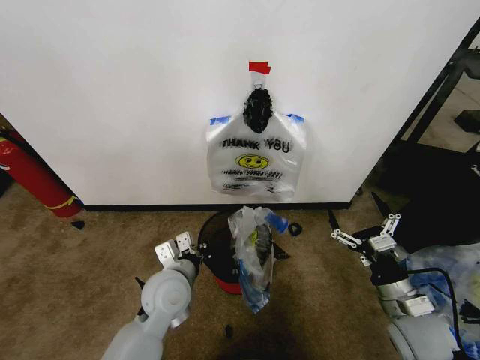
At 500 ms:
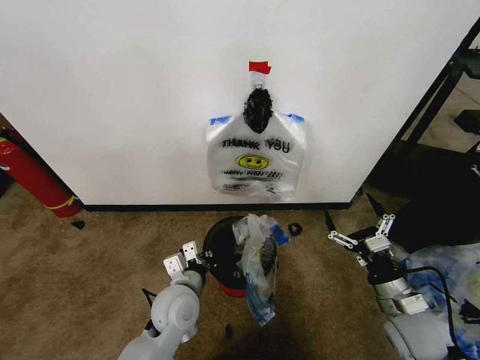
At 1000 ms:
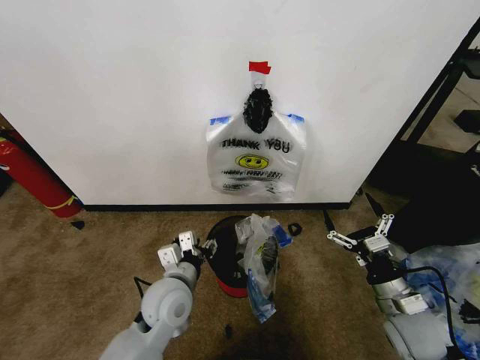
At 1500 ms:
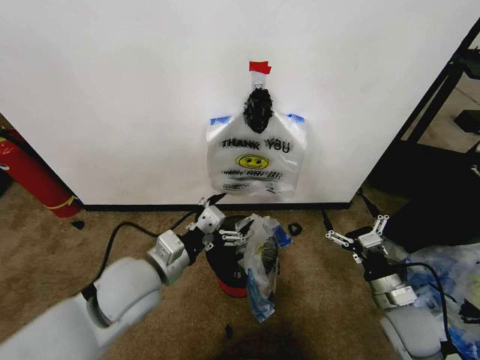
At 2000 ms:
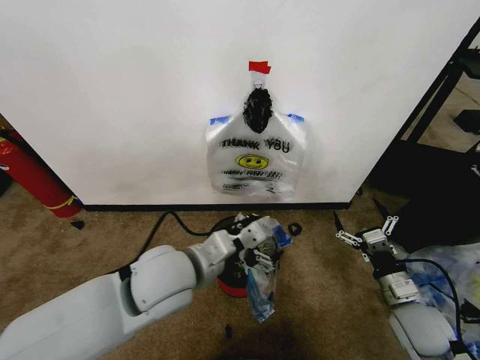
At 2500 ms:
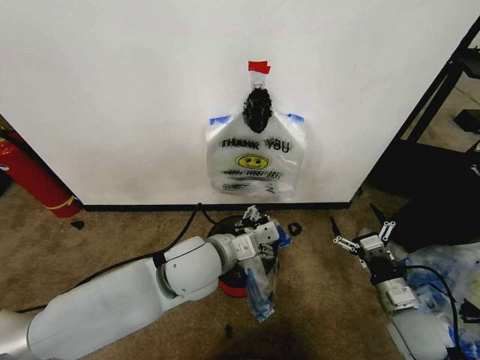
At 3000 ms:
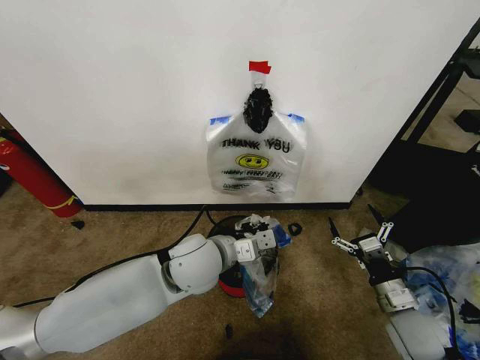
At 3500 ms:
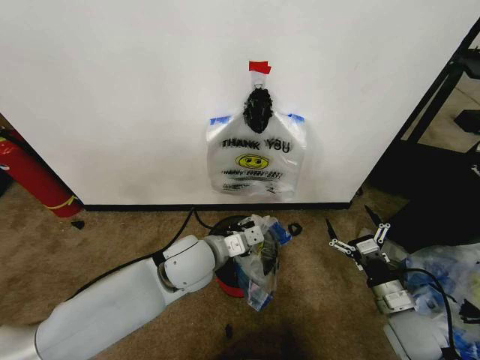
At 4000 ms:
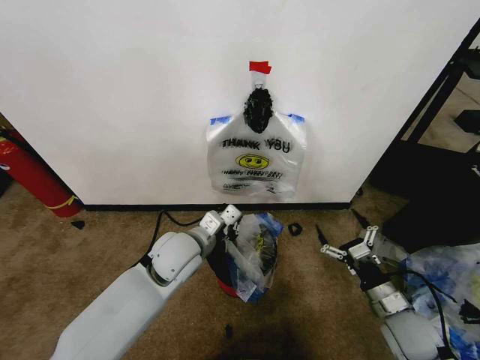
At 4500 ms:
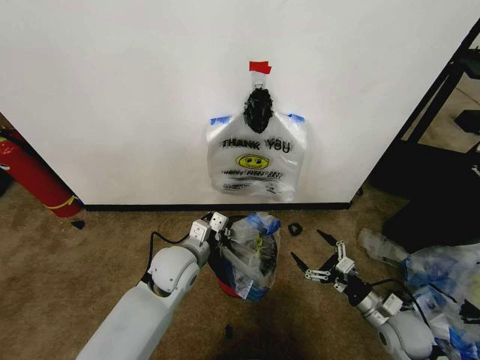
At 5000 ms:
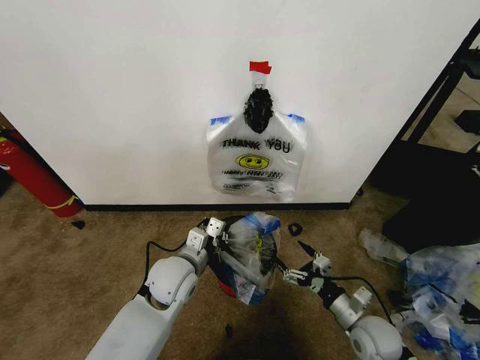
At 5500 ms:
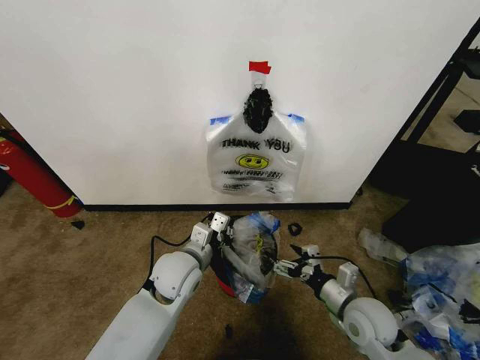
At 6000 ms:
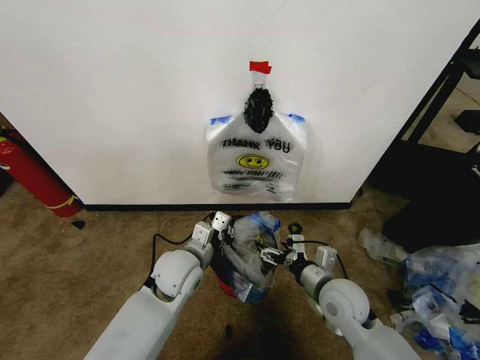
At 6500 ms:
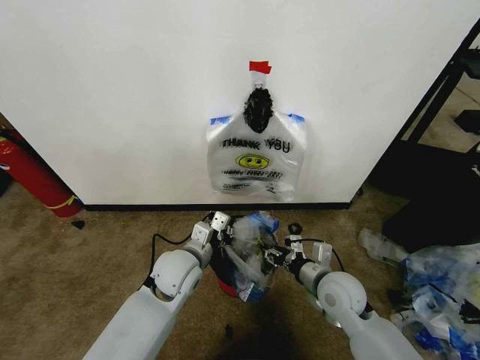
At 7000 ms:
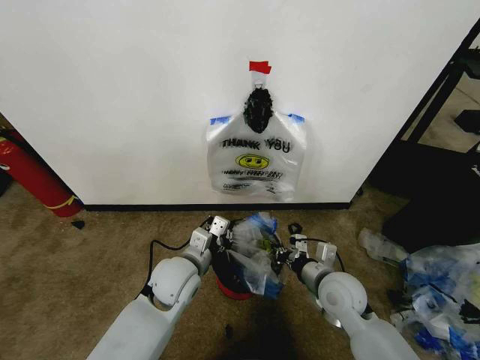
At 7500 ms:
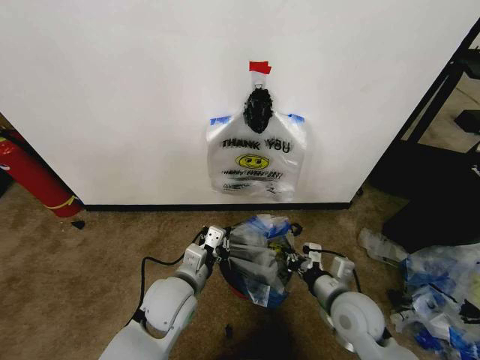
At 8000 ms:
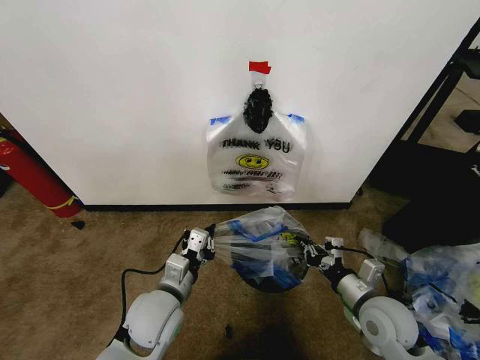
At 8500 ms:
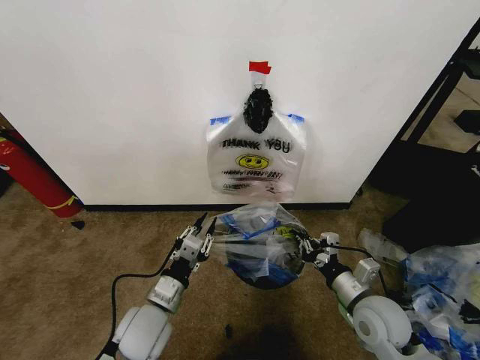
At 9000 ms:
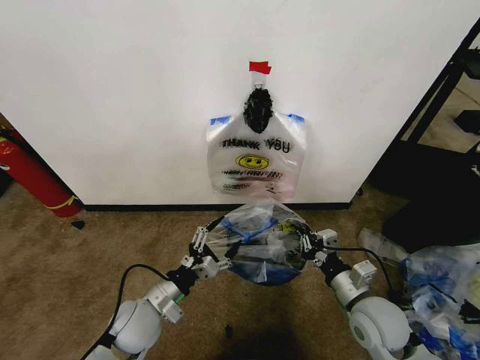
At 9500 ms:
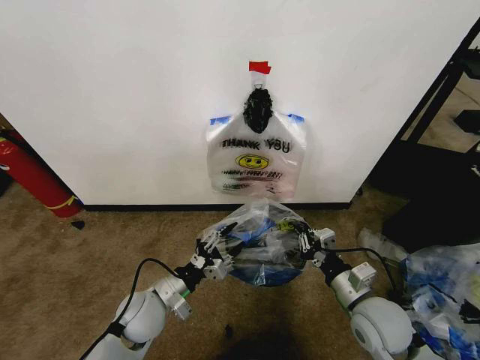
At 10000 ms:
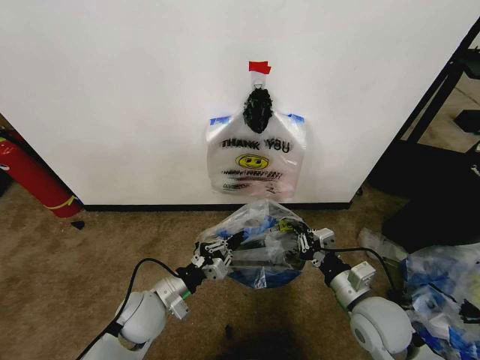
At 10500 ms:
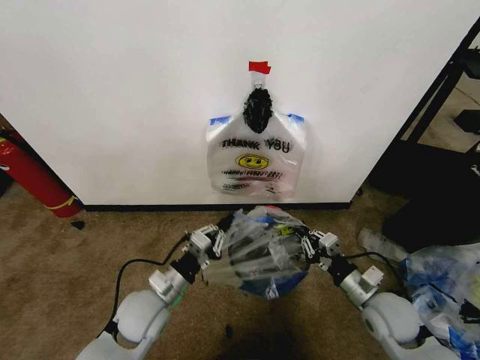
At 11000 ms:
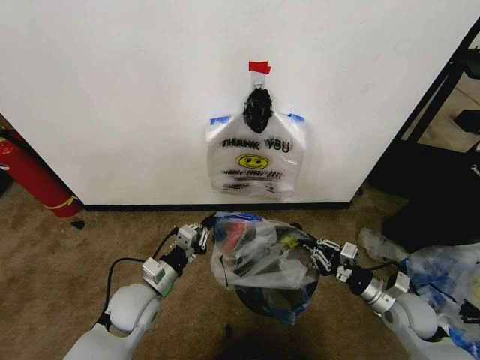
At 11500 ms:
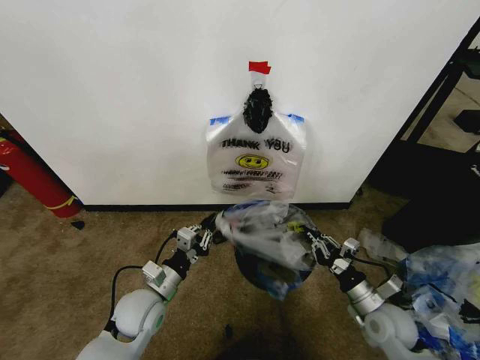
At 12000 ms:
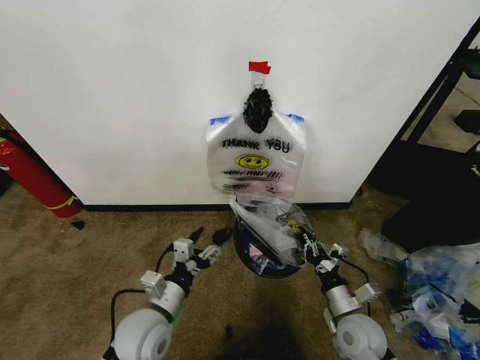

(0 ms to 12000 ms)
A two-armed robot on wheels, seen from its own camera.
Task of the whole recording: Pick up the garbage bag from the wall and place it over the trash bin.
0 ms - 2000 ms: The left gripper heads upward, covering some 15 cm, and opens.
2000 ms - 4000 ms: The left gripper heads forward and downward, covering roughly 10 cm, and closes up.
4000 ms - 6000 ms: The left gripper shifts by some 5 cm. Meanwhile the right gripper travels to the left by approximately 15 cm.
6000 ms - 8000 ms: The left gripper moves backward, about 10 cm. The right gripper is displaced to the right by some 5 cm, and closes its fingers.
8000 ms - 10000 ms: The left gripper shifts by roughly 5 cm, and opens and closes again.
10000 ms - 12000 ms: The right gripper is displaced downward by approximately 10 cm, and reaches roughly 10 cm to the right, then returns. The left gripper moves some 5 cm, and opens its fingers.

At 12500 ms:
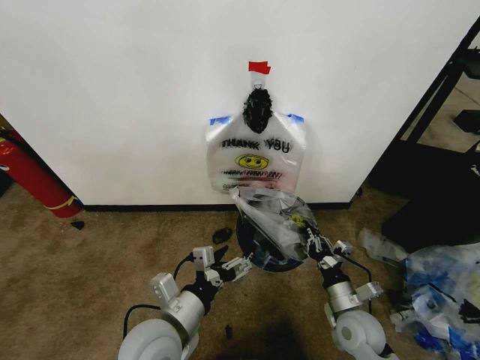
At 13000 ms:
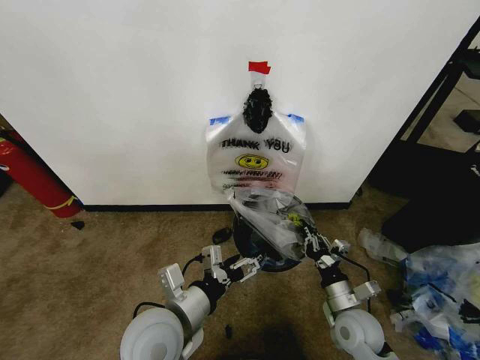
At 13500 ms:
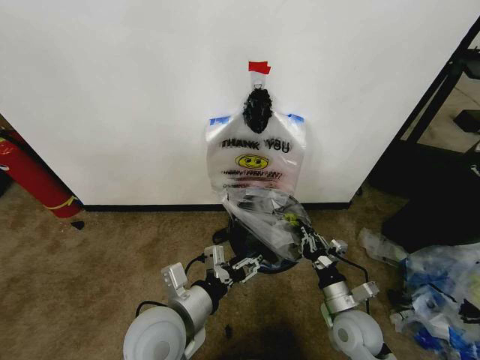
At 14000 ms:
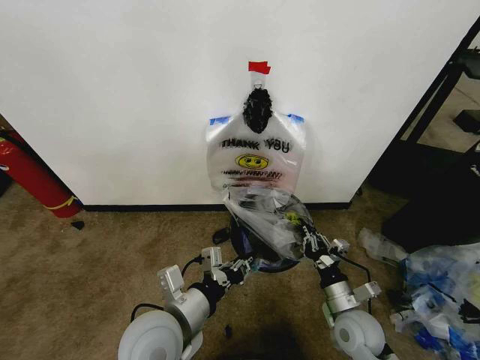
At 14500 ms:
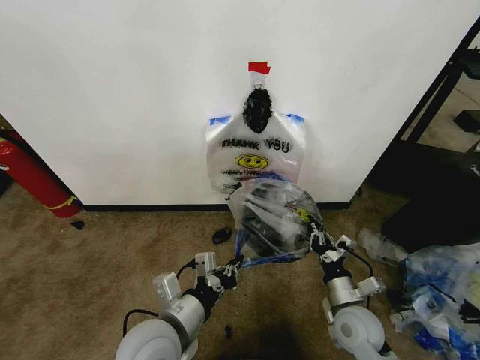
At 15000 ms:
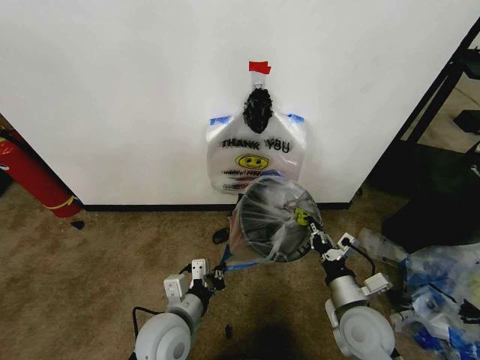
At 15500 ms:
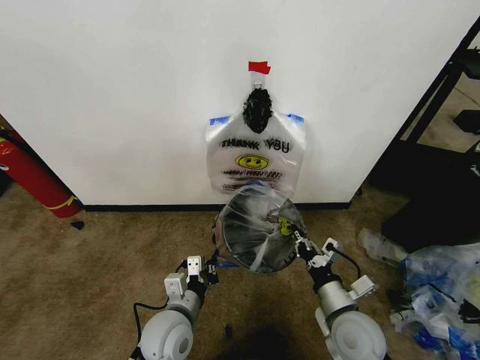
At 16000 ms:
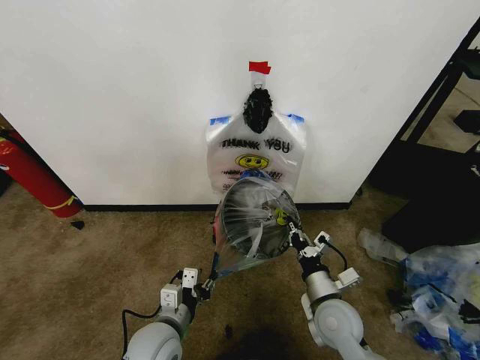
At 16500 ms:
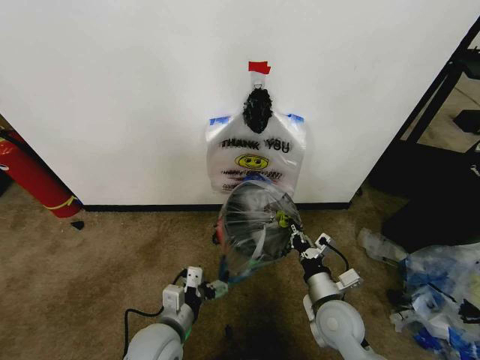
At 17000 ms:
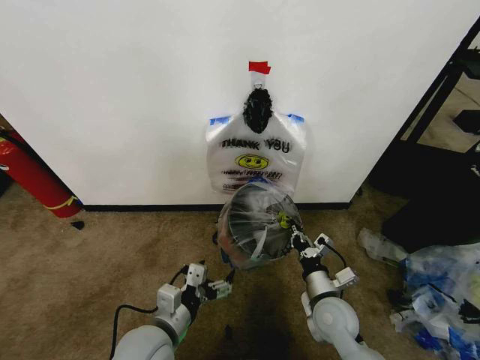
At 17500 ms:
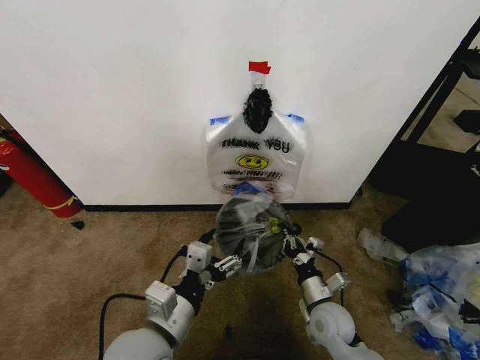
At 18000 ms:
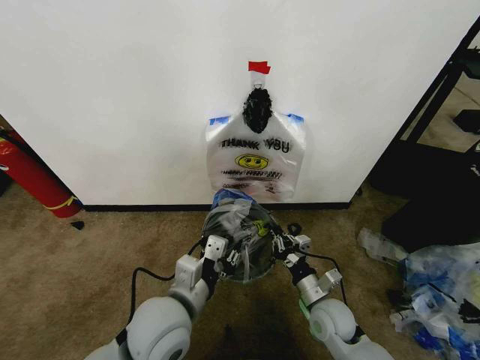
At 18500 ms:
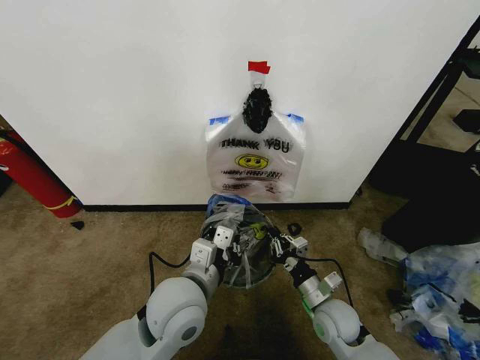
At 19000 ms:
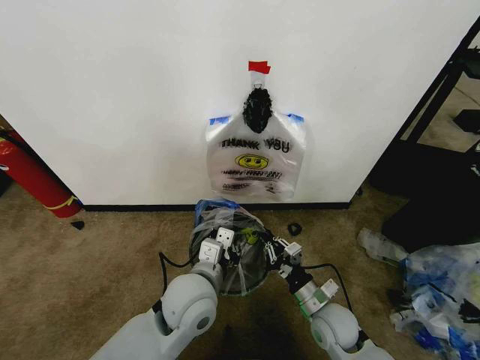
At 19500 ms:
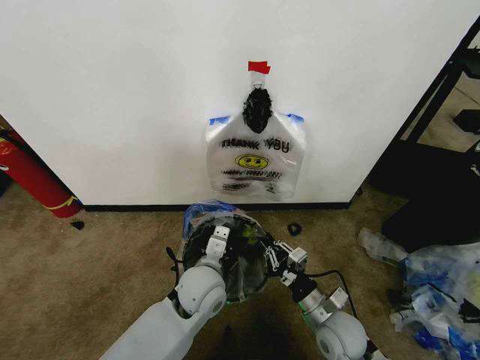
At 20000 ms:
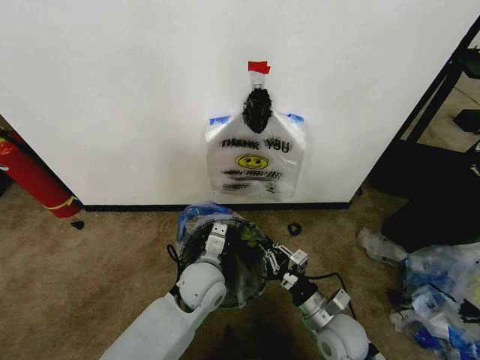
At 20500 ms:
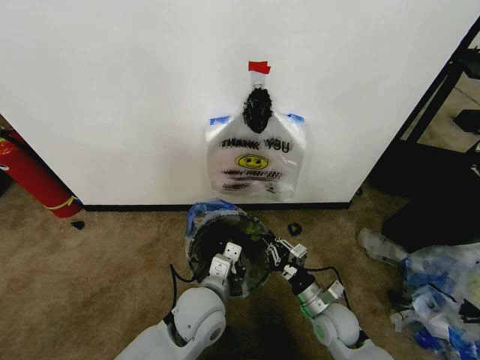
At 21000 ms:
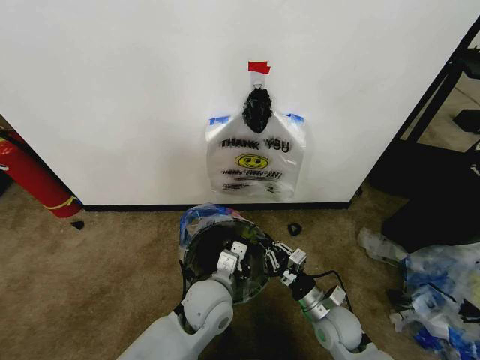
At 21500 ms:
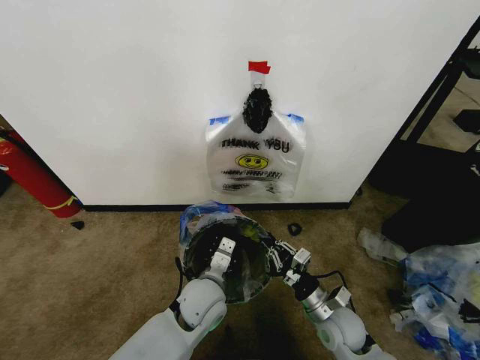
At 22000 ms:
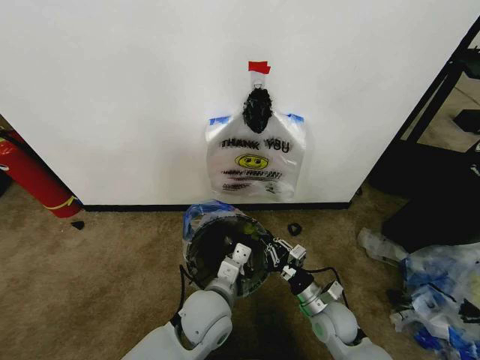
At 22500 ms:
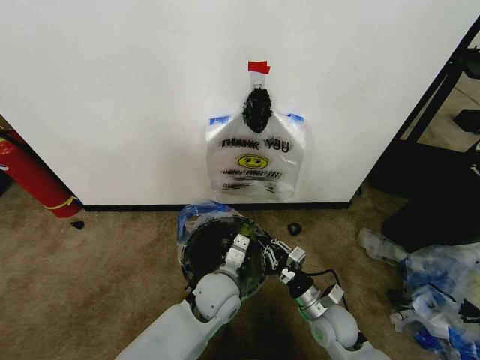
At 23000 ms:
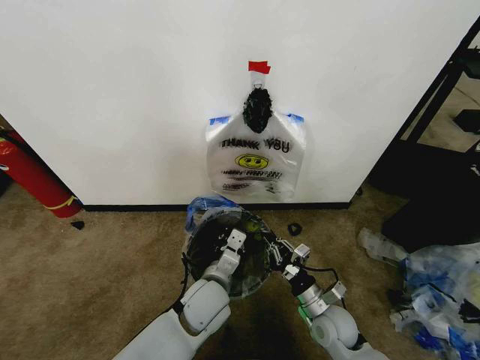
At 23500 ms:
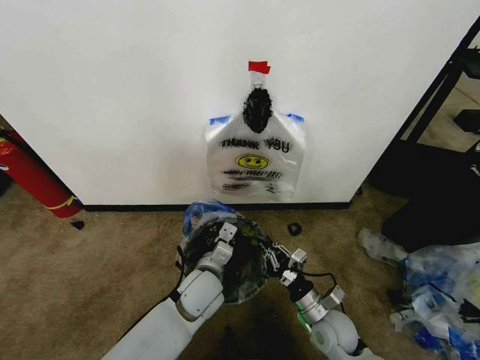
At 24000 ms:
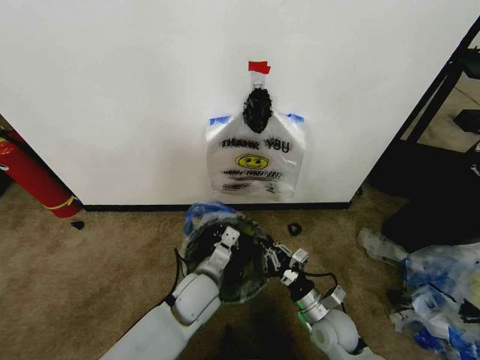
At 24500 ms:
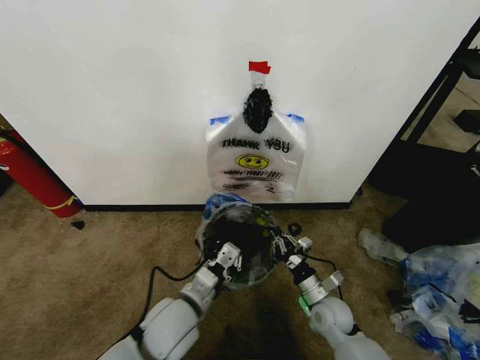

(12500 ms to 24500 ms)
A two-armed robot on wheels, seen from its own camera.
Task of the whole recording: Pick up the garbage bag from the wall and place it over the trash bin.
12500 ms - 14500 ms: The left gripper closes up.
14500 ms - 16500 ms: The left gripper heads downward, covering approximately 10 cm, and opens its fingers.
16500 ms - 18500 ms: The left gripper shifts roughly 15 cm upward and to the right, and closes.
18500 ms - 20500 ms: The left gripper heads downward, covering approximately 10 cm.
20500 ms - 22500 ms: The left gripper shifts by approximately 5 cm.
22500 ms - 24500 ms: The left gripper shifts about 10 cm to the left and backward.

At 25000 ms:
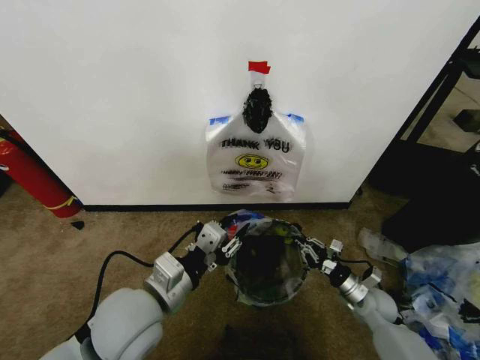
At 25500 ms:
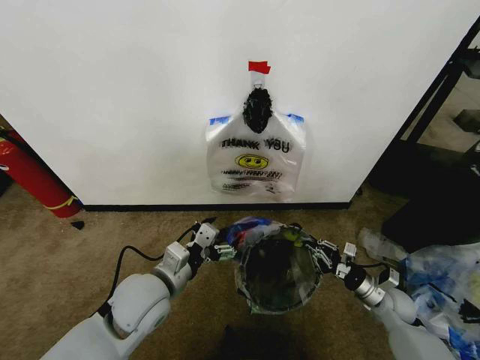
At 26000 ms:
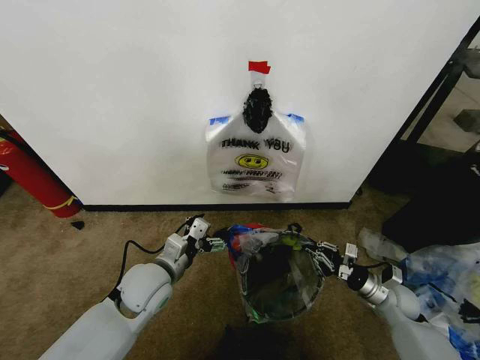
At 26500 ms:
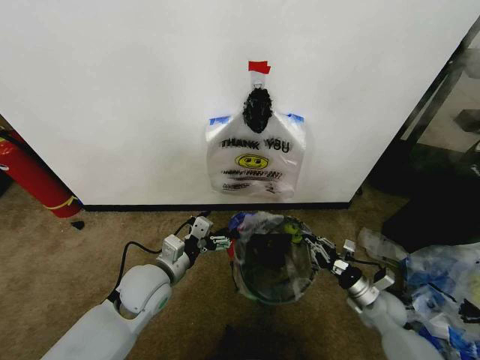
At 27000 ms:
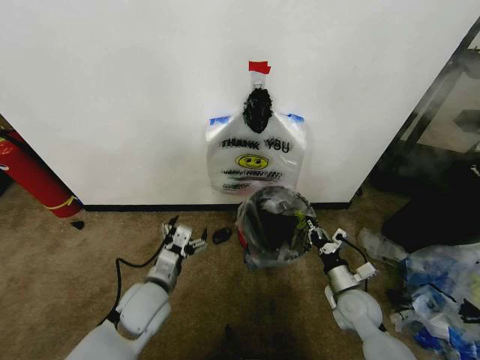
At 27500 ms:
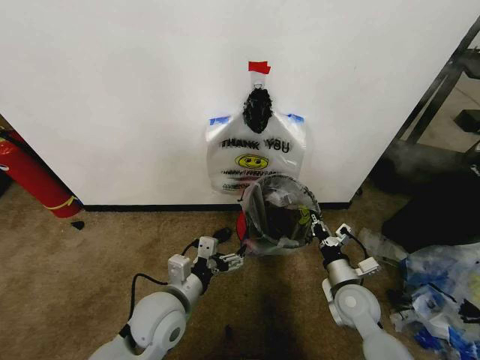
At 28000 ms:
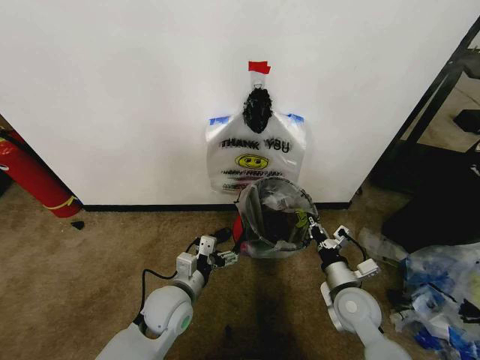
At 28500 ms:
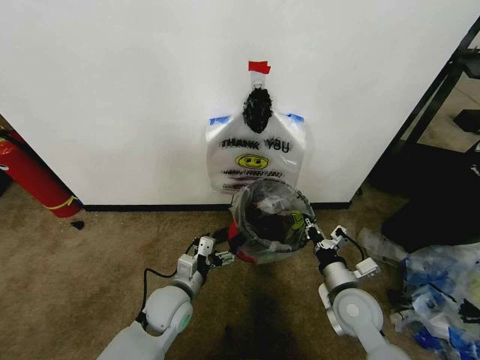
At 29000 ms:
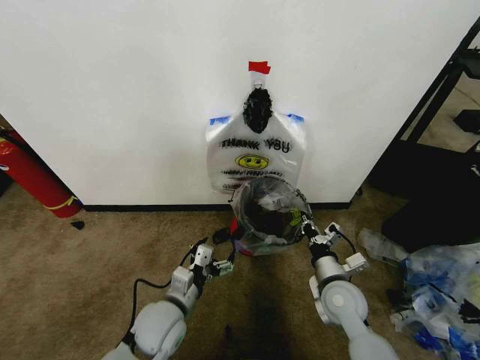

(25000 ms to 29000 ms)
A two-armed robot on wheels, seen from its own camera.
Task of the whole recording: Pick up the garbage bag from the wall and place it over the trash bin.
25000 ms - 27000 ms: The left gripper moves downward and forward, some 15 cm, and opens. Meanwhile the right gripper goes about 5 cm to the left.
27000 ms - 29000 ms: The right gripper goes about 10 cm upward and to the left; the left gripper changes place by some 5 cm.
